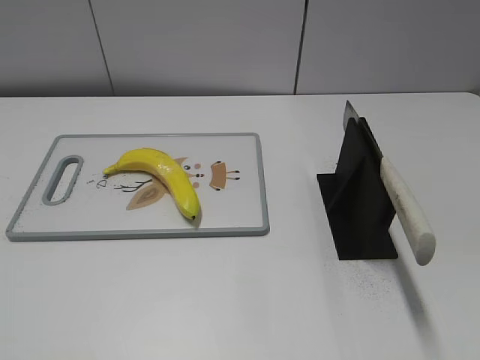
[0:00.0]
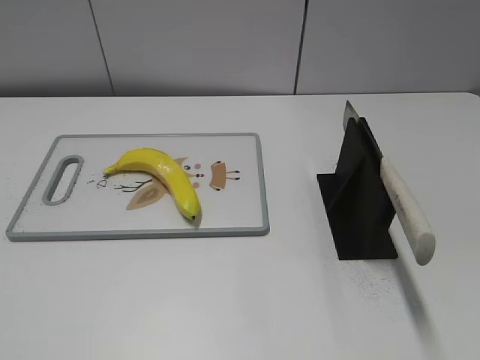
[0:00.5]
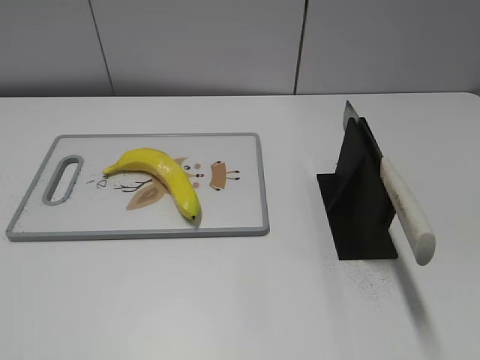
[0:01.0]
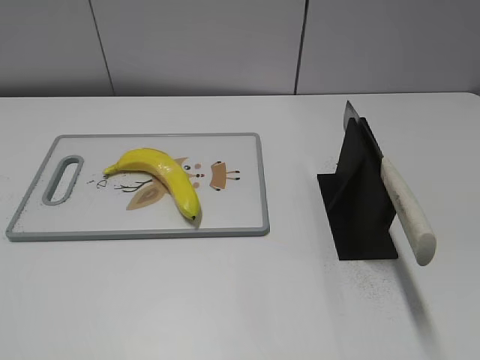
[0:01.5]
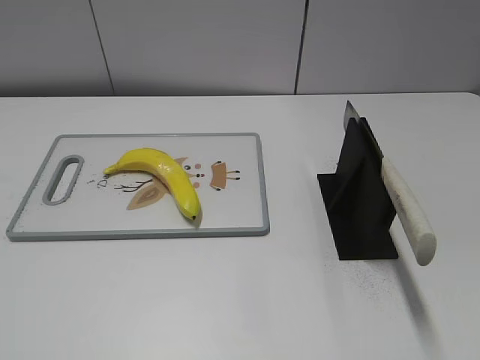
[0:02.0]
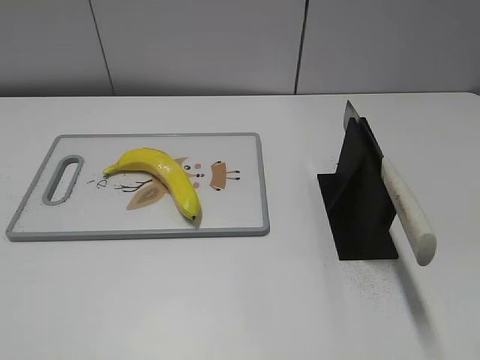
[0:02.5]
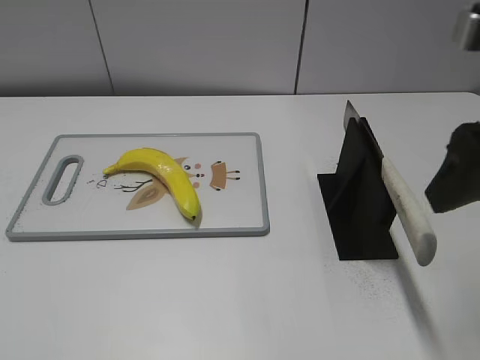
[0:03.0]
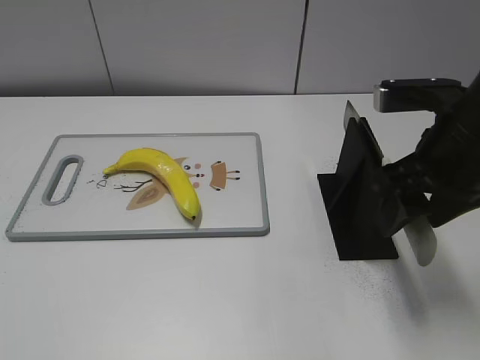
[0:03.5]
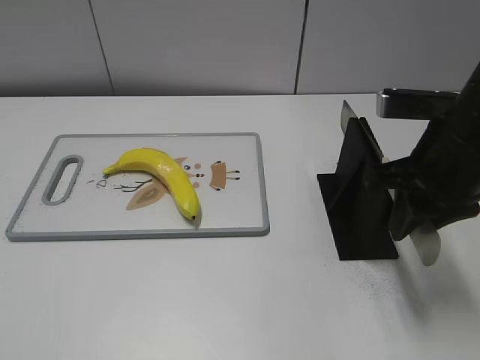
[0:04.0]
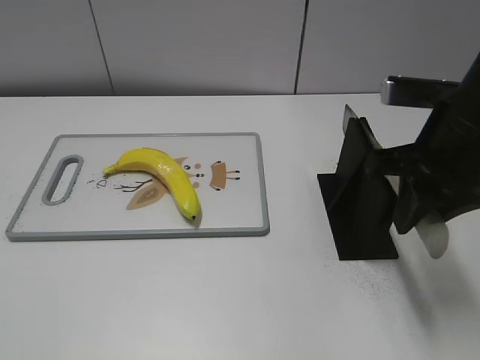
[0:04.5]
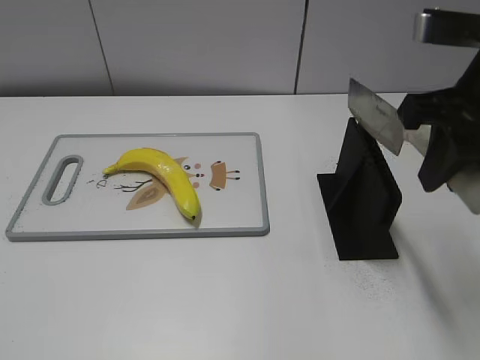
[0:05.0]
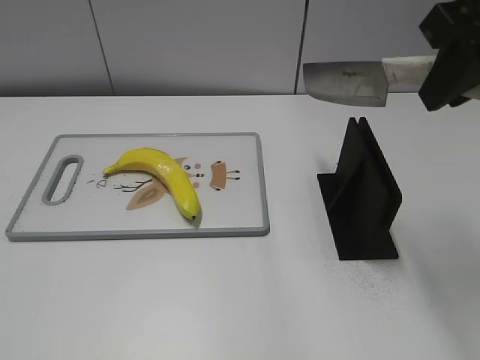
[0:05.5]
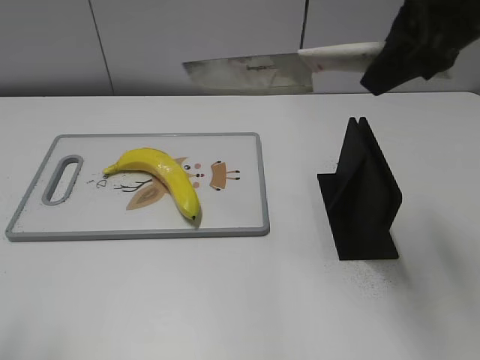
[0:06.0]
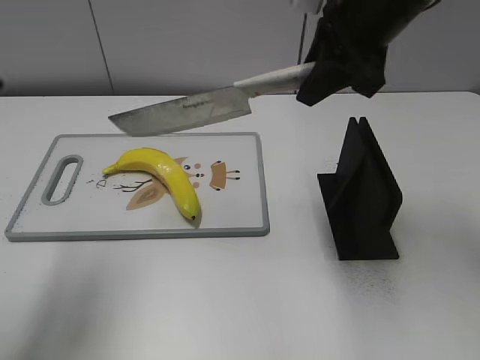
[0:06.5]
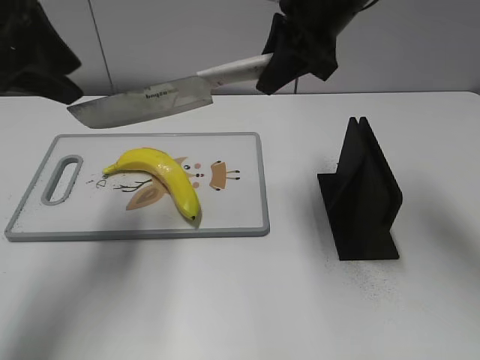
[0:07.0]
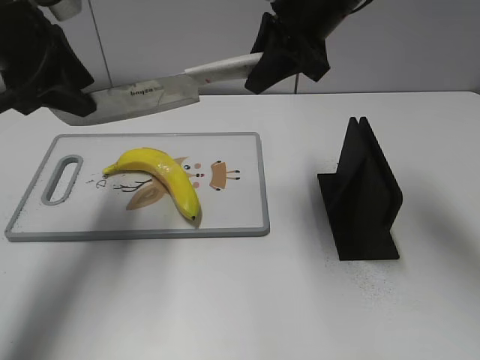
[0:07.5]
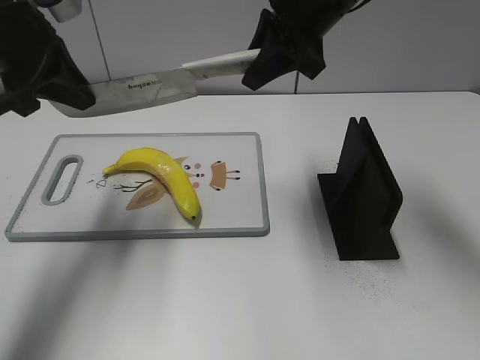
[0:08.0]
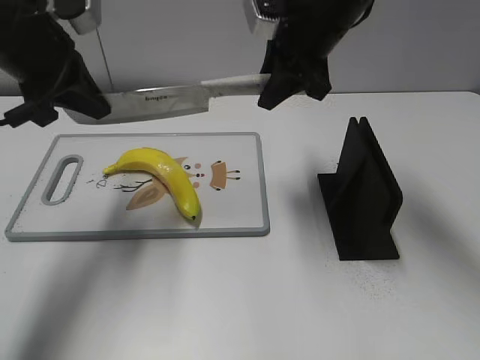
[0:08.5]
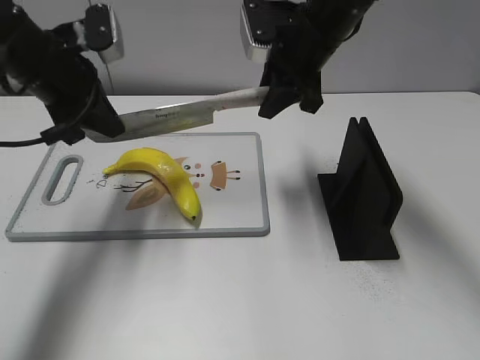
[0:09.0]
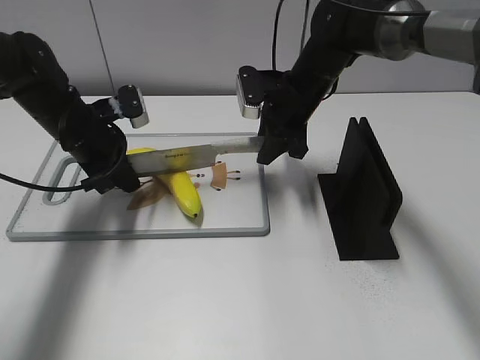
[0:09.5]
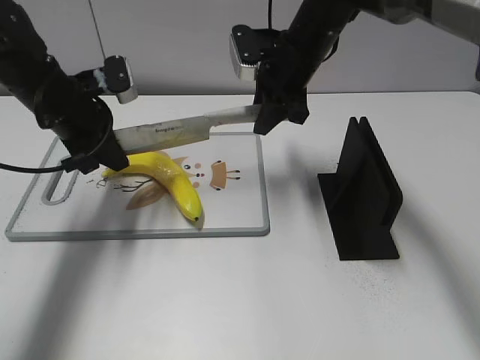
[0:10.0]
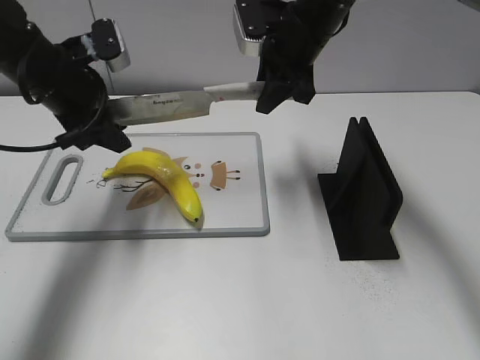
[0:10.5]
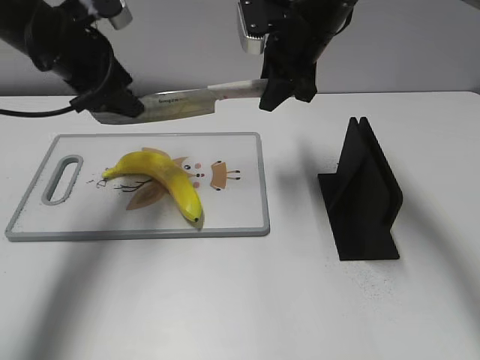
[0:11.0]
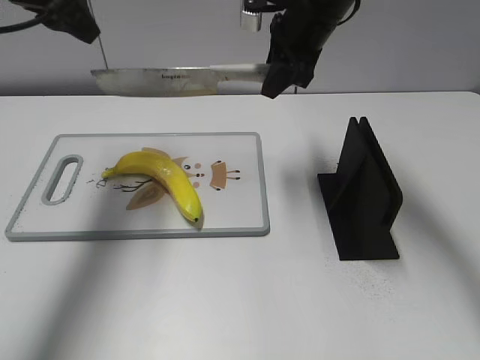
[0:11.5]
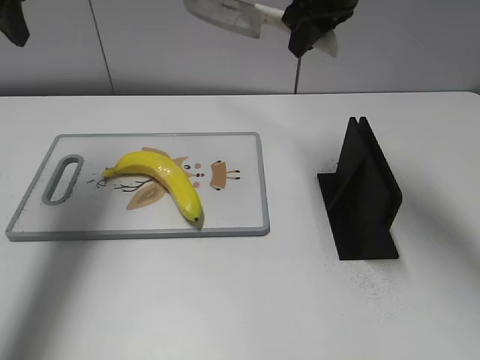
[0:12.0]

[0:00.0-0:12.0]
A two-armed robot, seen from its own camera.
Task of the whole recording: cut plastic banana.
Step, 0:00.0 to 0:05.5: Grab the knife handle with your right hand.
Step, 0:06.0 to 0:10.0: Lift the knife with your right hand.
Step, 0:10.5 to 0:12.0: Cut the banana with your right hand.
0:02.0 to 0:04.0: The right gripper moves forward and to the left, about 25 cm, and closes up.
0:04.0 to 0:06.0: The left gripper heads forward and upward, covering some 10 cm. Meanwhile the right gripper moves upward, roughly 15 cm.
0:06.0 to 0:08.0: The right gripper moves forward, to the left and downward, some 15 cm. Meanwhile the left gripper goes some 25 cm forward, and closes up.
0:08.0 to 0:10.0: The left gripper travels downward by some 10 cm. The right gripper heads downward and forward, covering about 10 cm.
0:10.0 to 0:12.0: The left gripper goes some 15 cm upward, and opens up, while the right gripper goes some 10 cm upward.

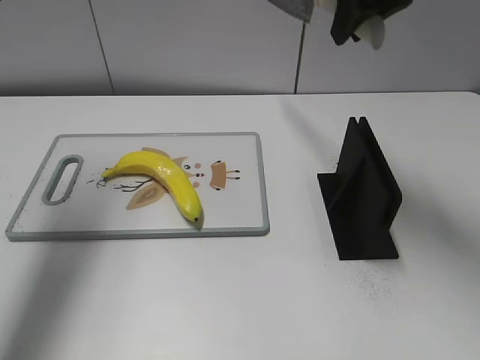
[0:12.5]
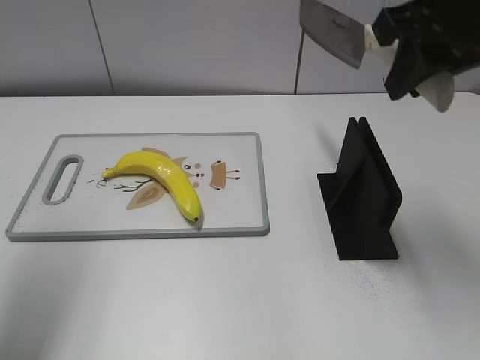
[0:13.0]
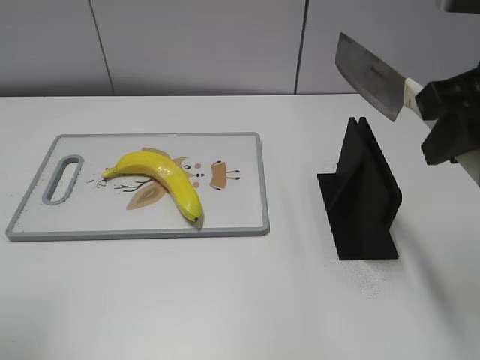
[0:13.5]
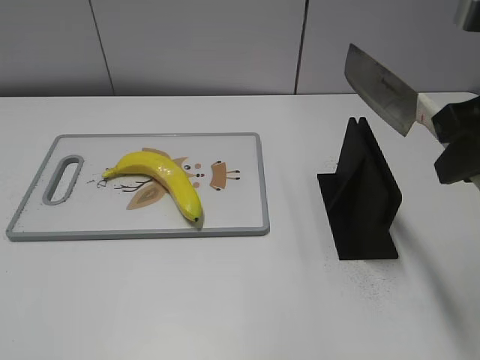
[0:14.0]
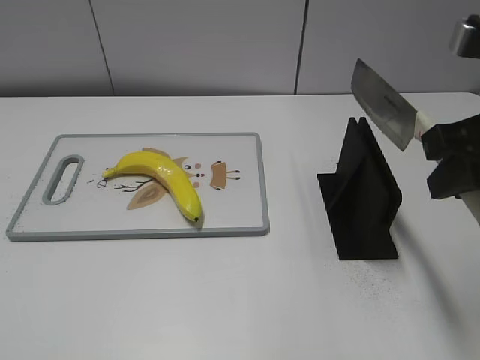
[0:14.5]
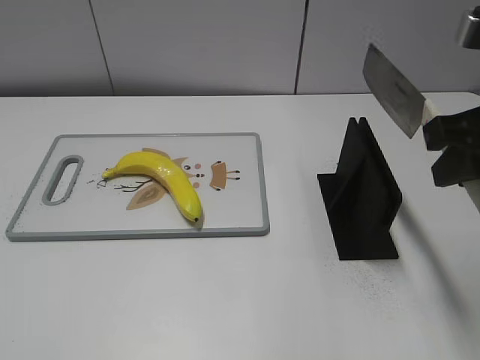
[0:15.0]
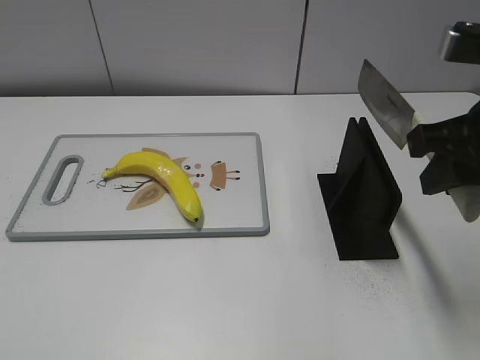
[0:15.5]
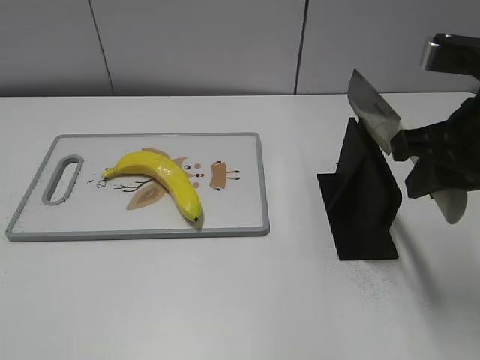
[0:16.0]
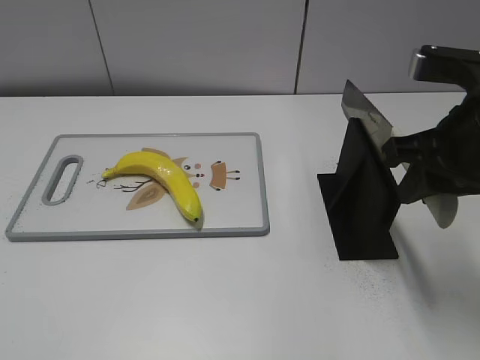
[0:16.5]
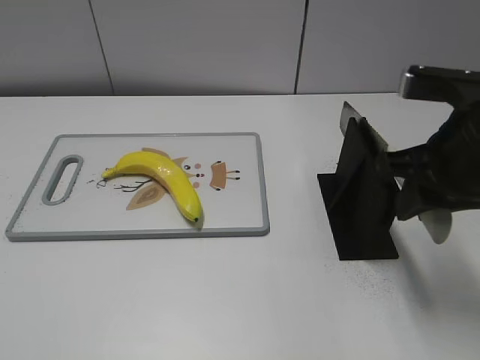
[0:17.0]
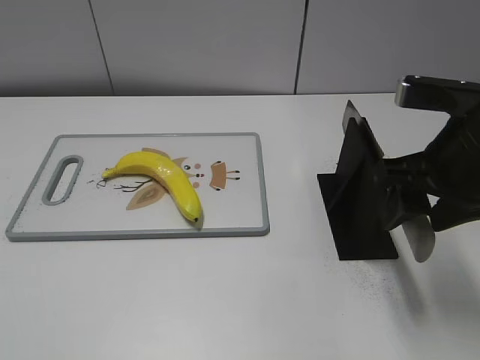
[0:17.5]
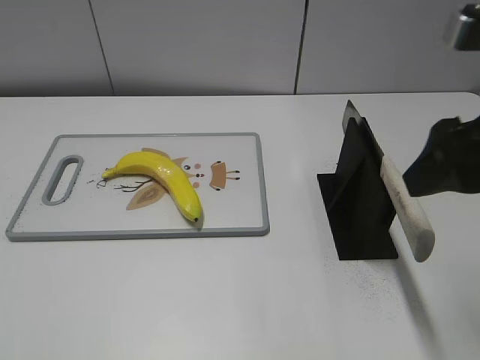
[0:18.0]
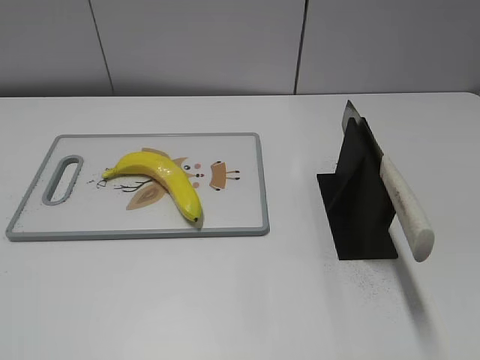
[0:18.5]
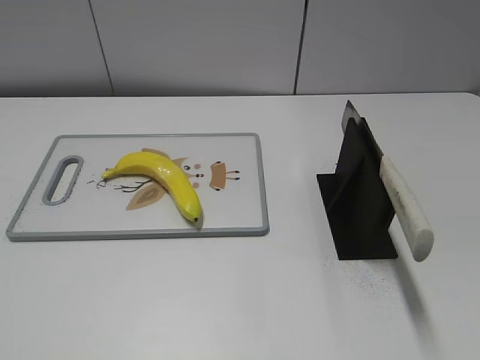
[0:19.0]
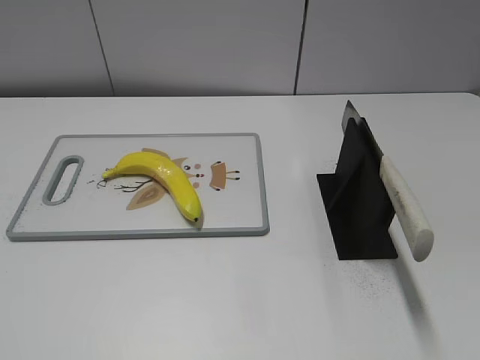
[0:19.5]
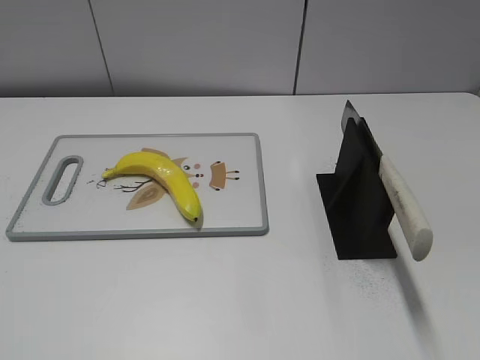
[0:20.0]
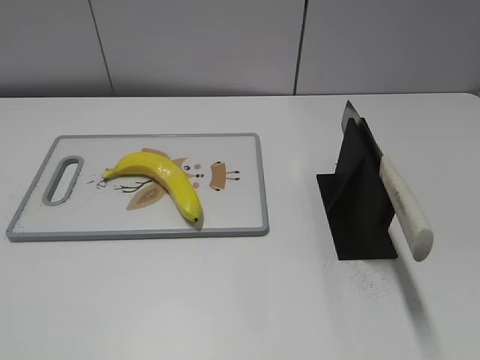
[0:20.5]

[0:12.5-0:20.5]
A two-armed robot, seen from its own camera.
Task of the whole recording: cut plastic banana.
Step, 0:13.5 to 0:20.5: Place the knife on the storage rack with your right hand.
0:12.5 to 0:14.5: The right gripper heads backward, covering about 15 cm, while the left gripper is displaced backward by some 35 cm.
0:14.5 to 0:16.5: The right gripper changes place by roughly 5 cm.
0:16.5 to 0:18.5: The right gripper goes about 15 cm backward, and opens up.
